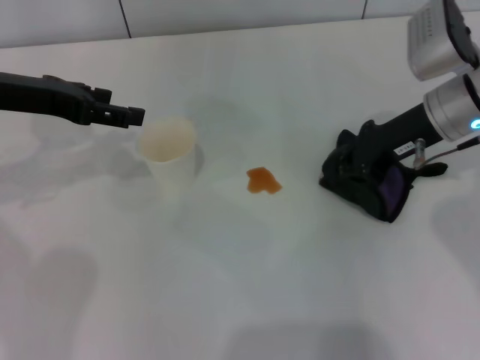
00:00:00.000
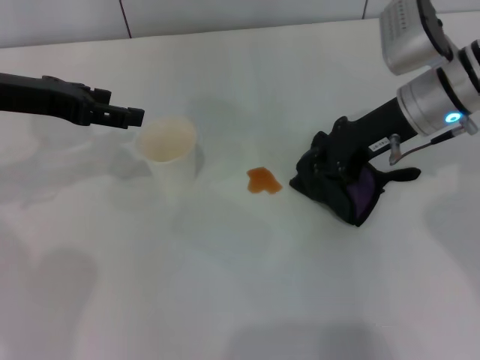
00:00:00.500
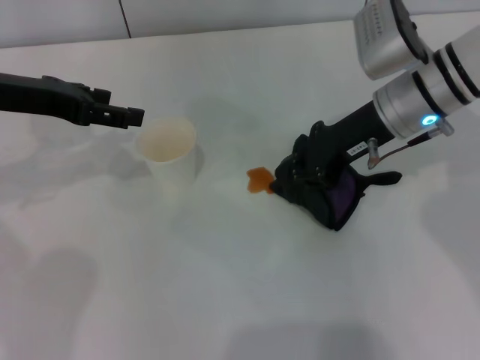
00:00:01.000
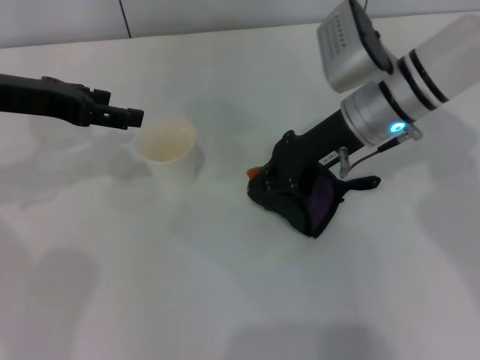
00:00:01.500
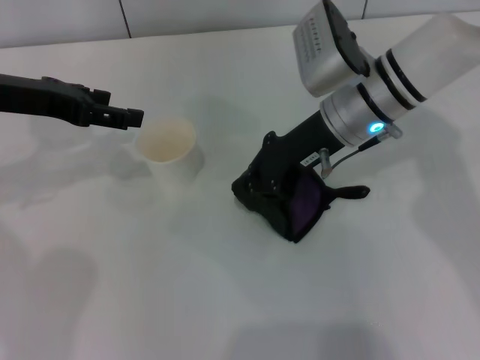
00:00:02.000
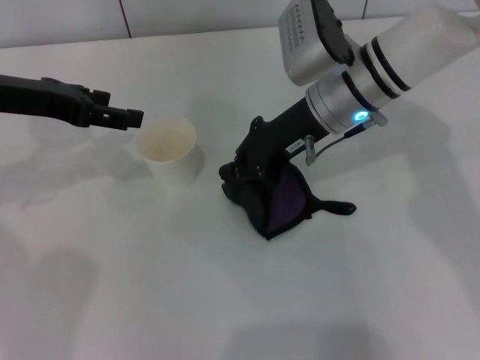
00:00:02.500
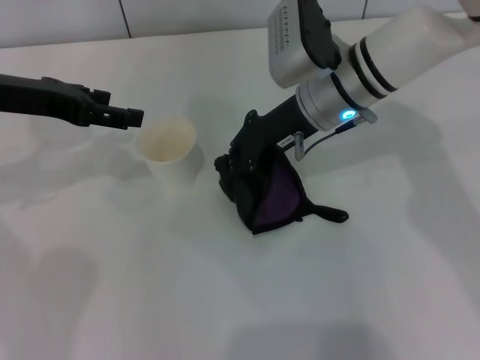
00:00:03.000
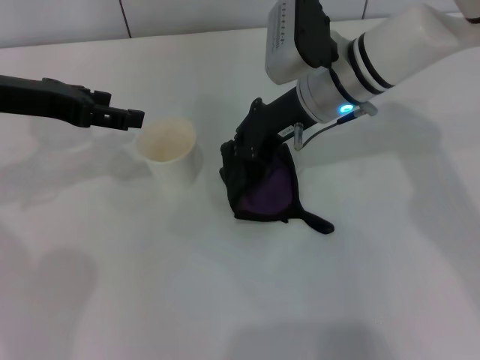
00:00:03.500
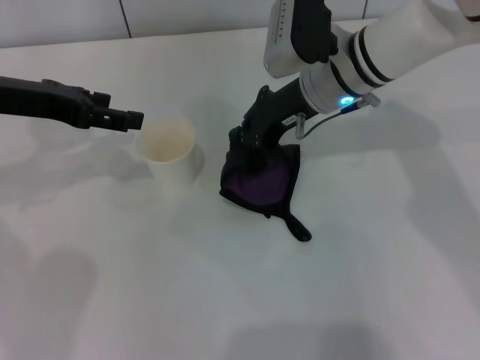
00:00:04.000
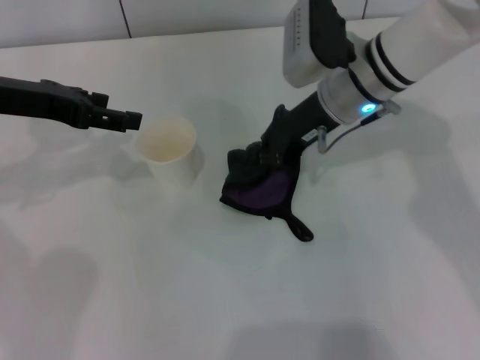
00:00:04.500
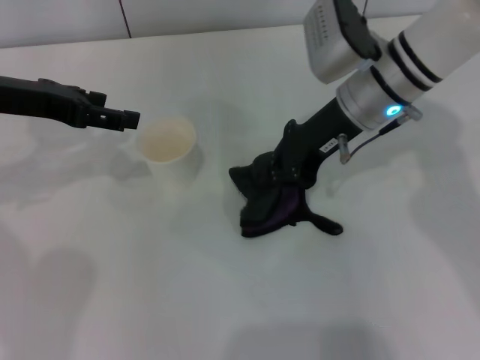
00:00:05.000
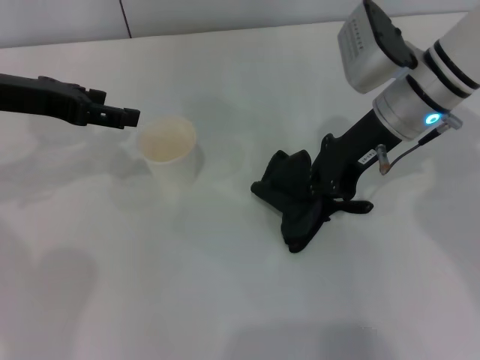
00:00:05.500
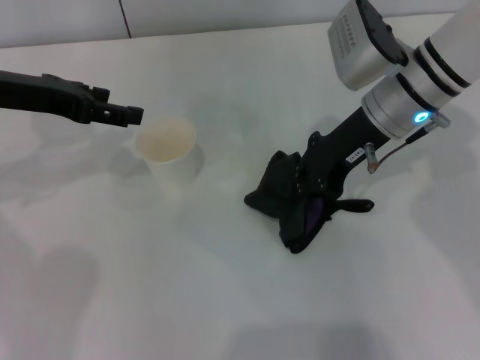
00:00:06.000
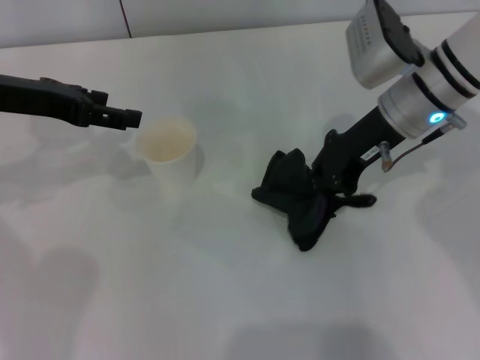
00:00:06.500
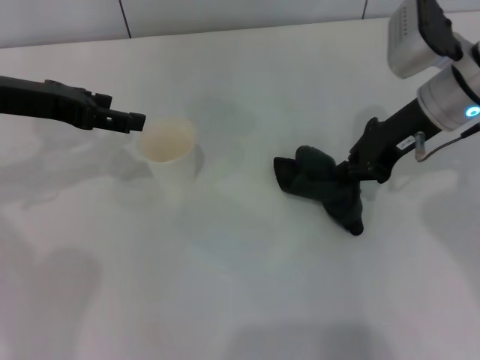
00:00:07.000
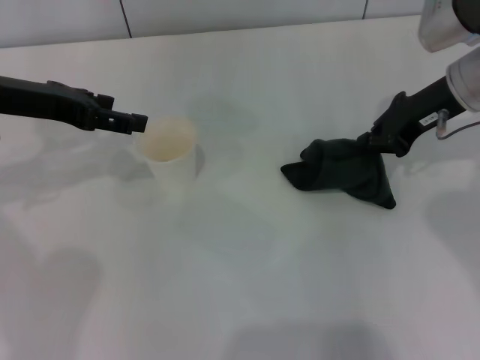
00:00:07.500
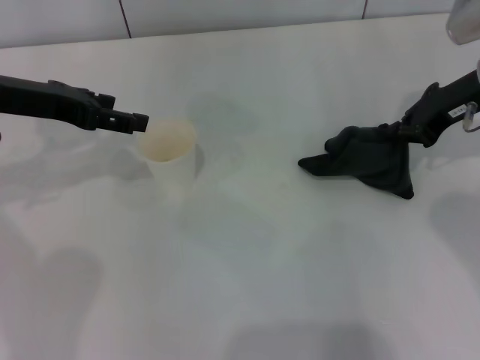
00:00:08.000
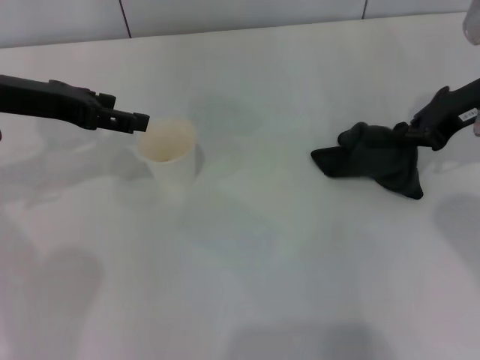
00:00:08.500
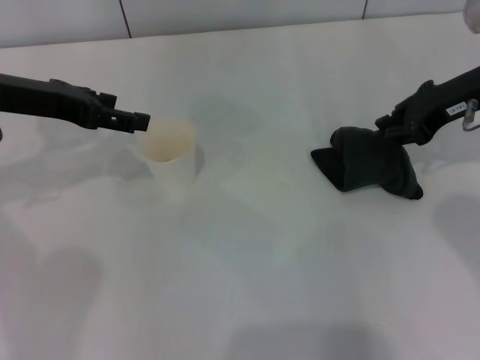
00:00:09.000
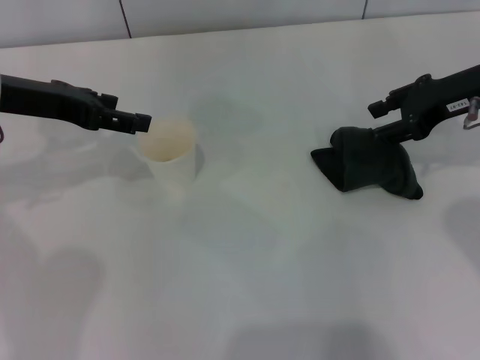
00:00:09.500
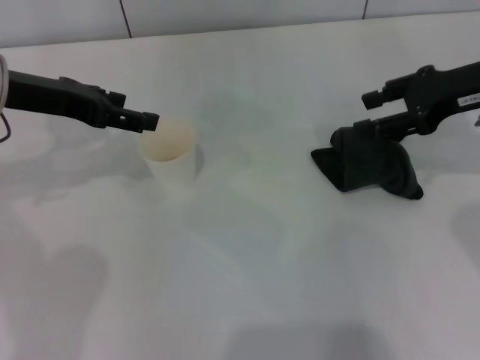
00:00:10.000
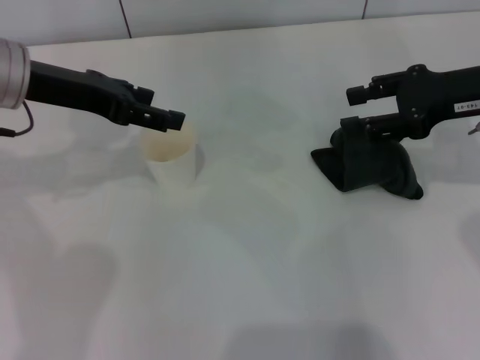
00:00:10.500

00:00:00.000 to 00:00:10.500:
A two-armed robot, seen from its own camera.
Step, 00:00:00.000 to 00:00:08.500: Wipe the stains off the table with the right gripper.
Step, 00:00:09.000 to 00:00:09.500: Place the rag on the table with the right gripper.
00:00:00.000 to 00:00:02.000: The right gripper moves to the left, about 10 cm.
00:00:02.000 to 00:00:04.000: There are only small adjustments of the grippers.
00:00:04.000 to 00:00:06.500: The right gripper goes approximately 5 cm to the right.
00:00:06.500 to 00:00:08.500: The right gripper moves to the right, about 10 cm.
00:00:08.500 to 00:00:10.500: The right gripper opens its fingers.

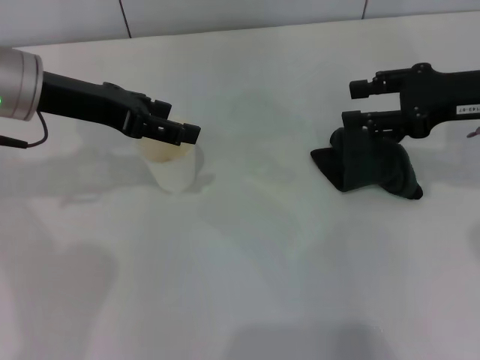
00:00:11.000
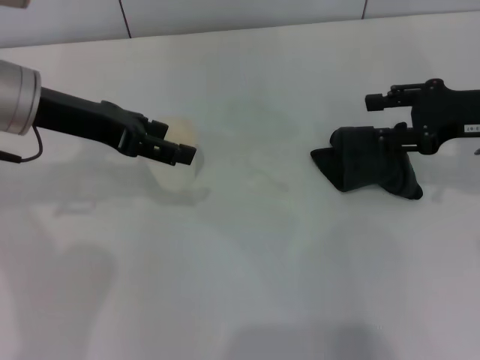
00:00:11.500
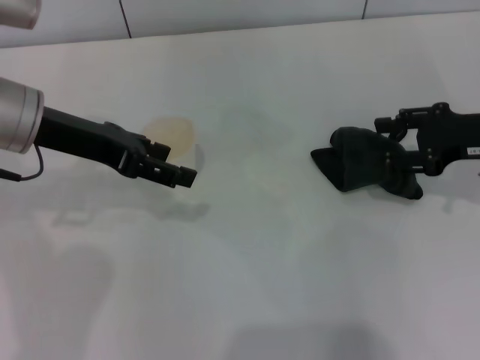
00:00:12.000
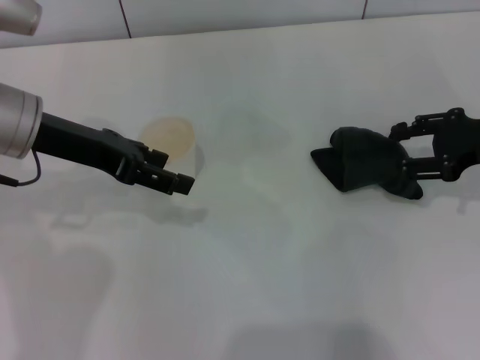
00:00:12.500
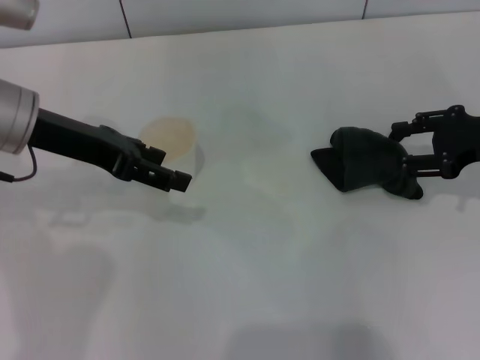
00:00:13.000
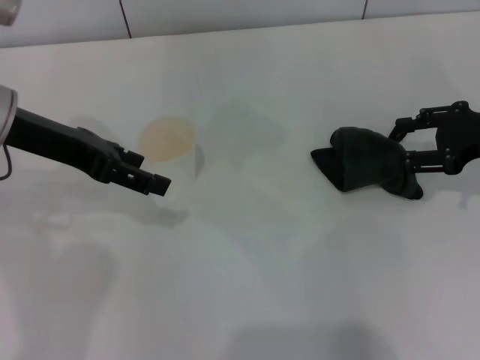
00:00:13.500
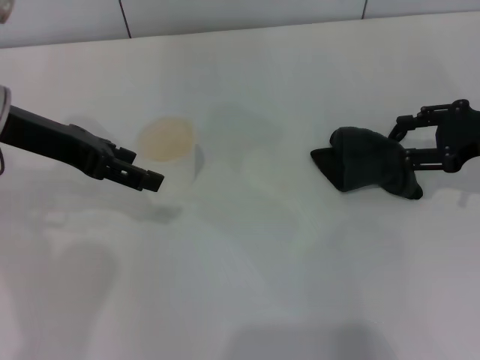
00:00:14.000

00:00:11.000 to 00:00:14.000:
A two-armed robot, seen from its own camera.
00:00:11.000 to 00:00:12.500: The right gripper shifts by roughly 5 cm.
00:00:12.500 to 00:00:14.000: There are only small adjustments of the grippers.

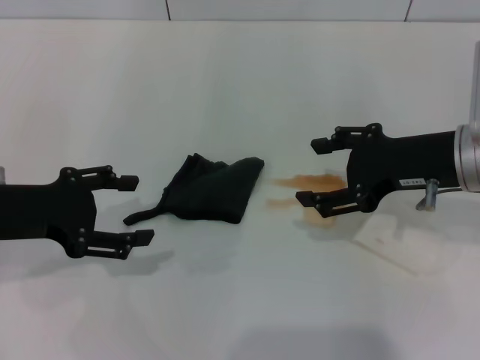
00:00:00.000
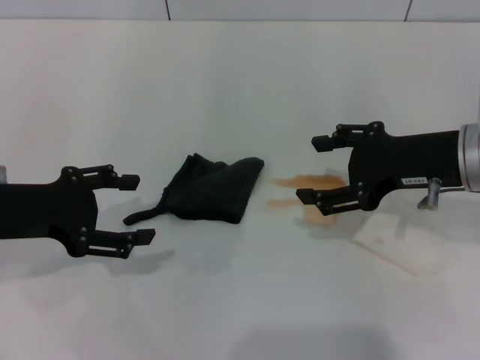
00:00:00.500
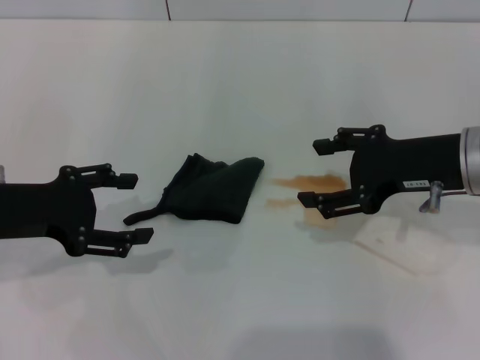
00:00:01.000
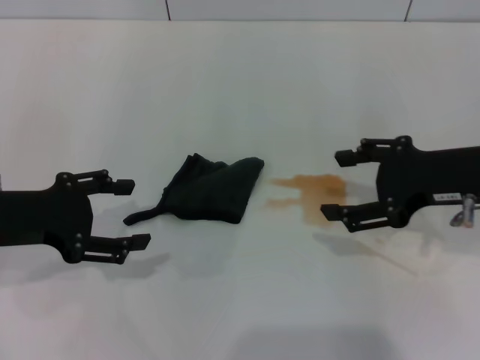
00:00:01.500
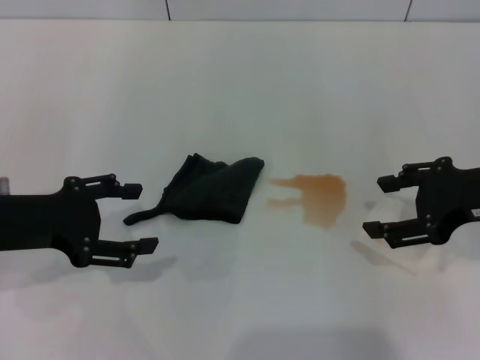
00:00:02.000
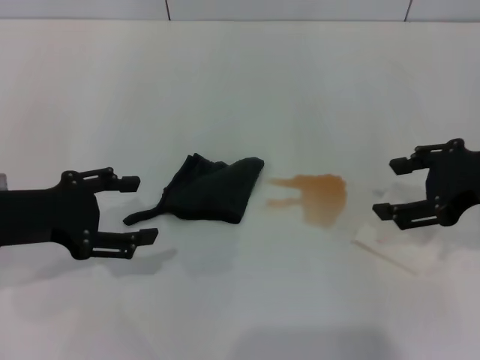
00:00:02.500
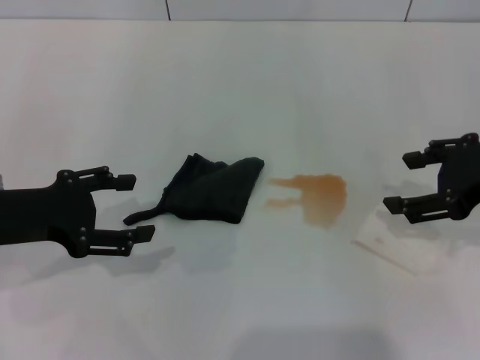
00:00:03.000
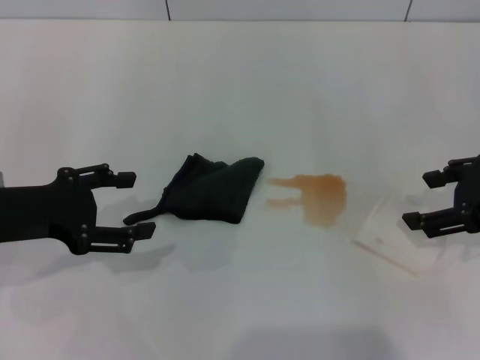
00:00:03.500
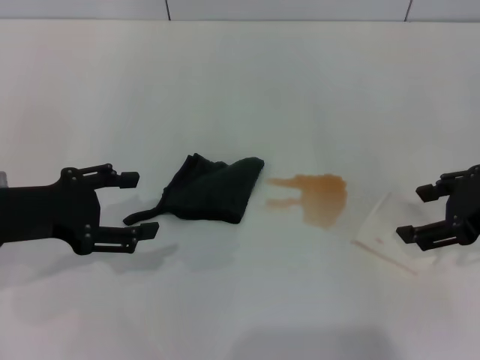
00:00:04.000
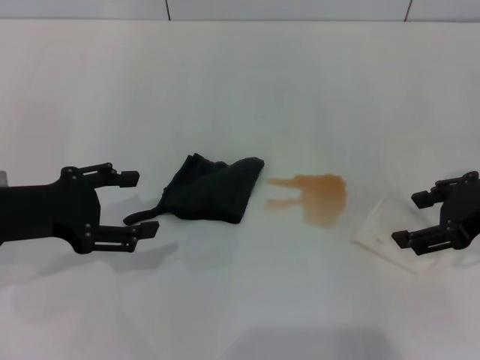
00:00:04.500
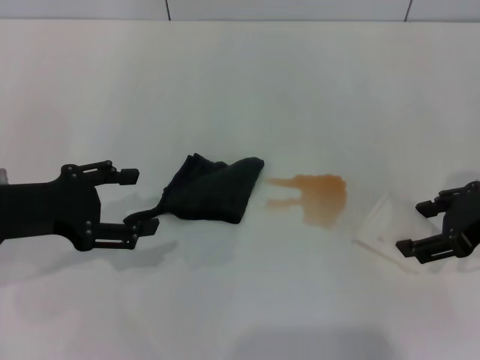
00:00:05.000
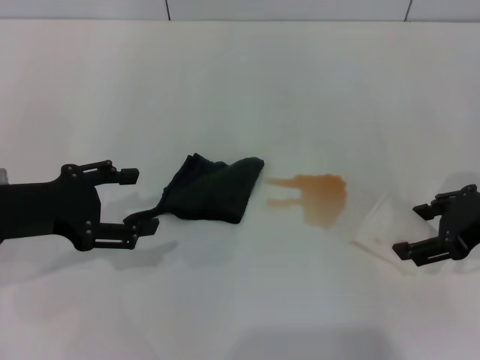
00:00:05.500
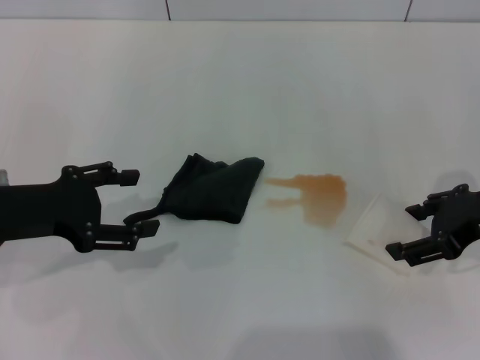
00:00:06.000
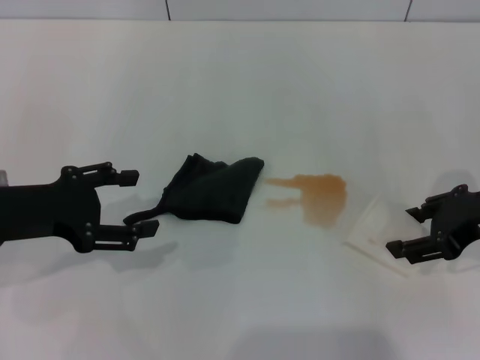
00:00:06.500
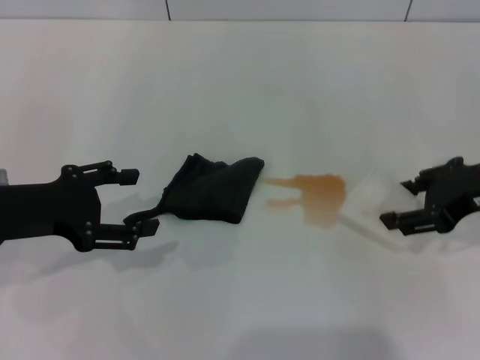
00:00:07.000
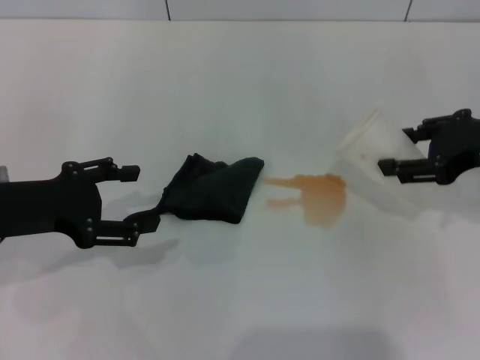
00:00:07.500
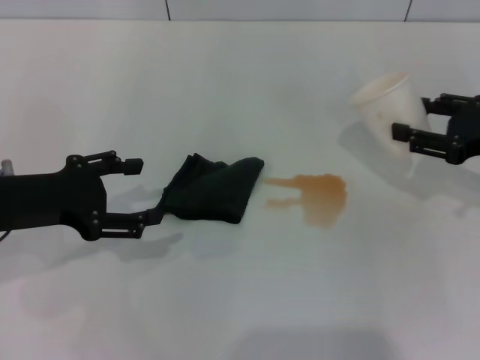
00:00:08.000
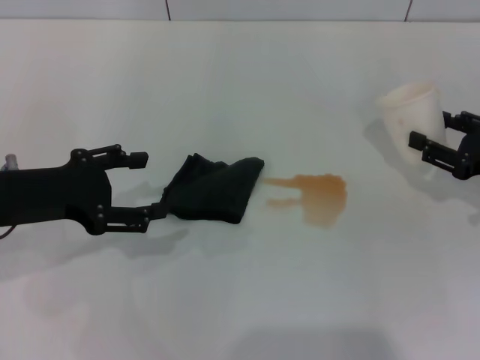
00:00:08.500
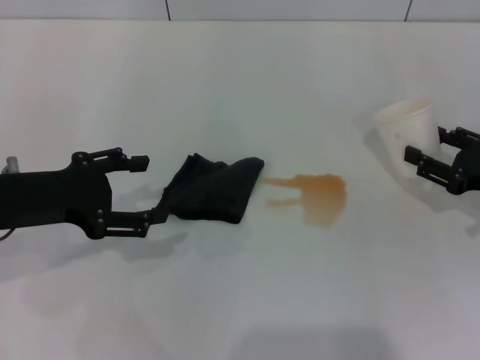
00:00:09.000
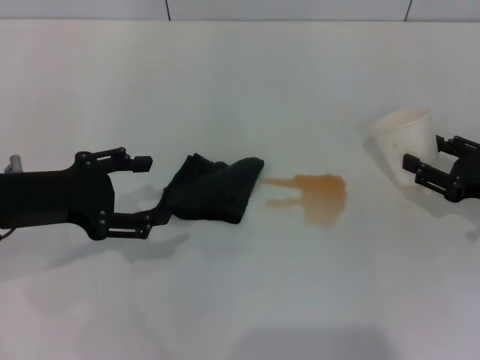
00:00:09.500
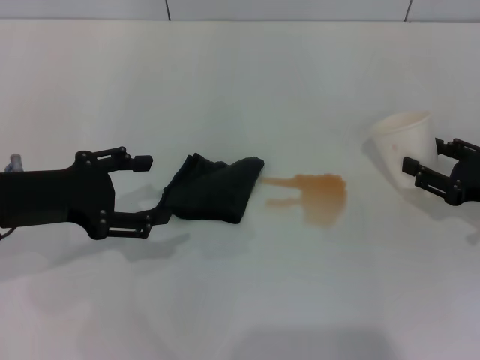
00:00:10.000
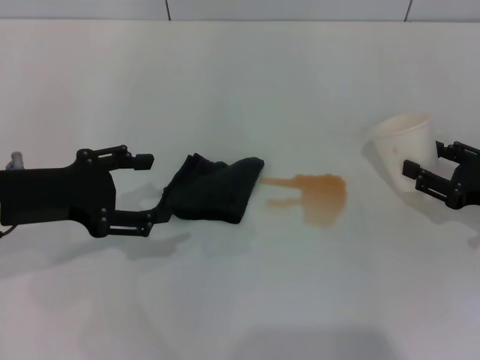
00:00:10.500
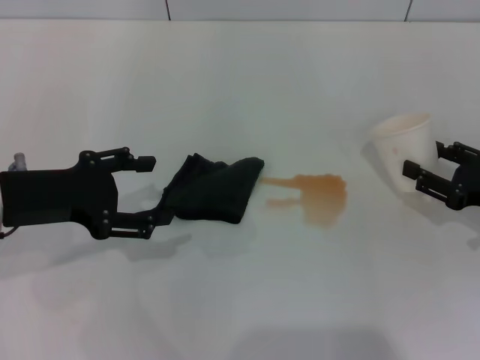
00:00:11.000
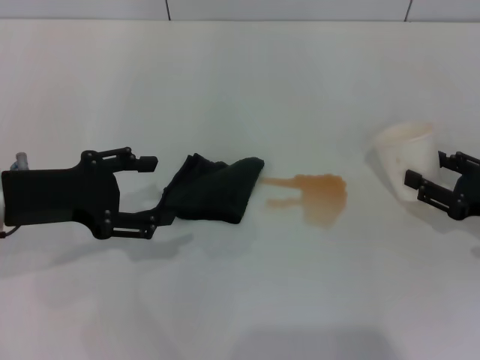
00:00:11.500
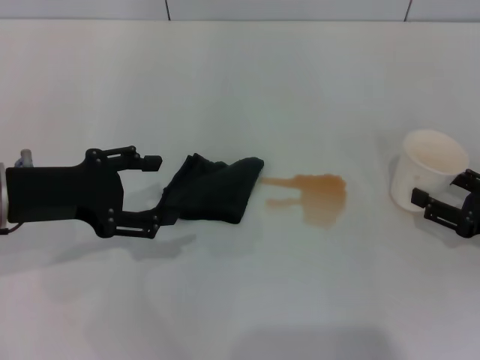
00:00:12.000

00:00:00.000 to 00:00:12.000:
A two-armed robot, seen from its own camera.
Step, 00:00:00.000 to 00:00:06.000: Grasp the paper cup with the right gripper.
00:00:00.000 to 00:00:02.000: The right gripper ends up about 5 cm from where it was.
00:00:02.000 to 00:00:06.000: The grippers stay close to where they were, moving slightly.
00:00:06.000 to 00:00:08.000: The right gripper shifts by approximately 5 cm, and closes.
00:00:08.000 to 00:00:10.000: The right gripper shifts some 10 cm downward.
00:00:10.000 to 00:00:12.000: The grippers stay close to where they were, moving slightly.
